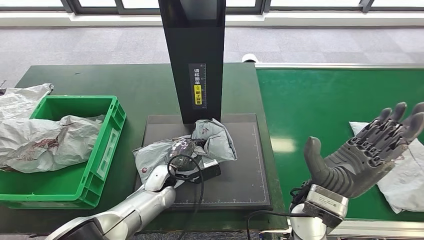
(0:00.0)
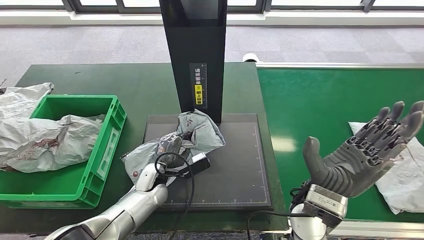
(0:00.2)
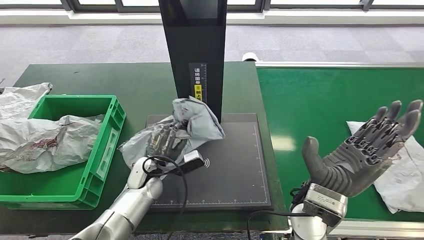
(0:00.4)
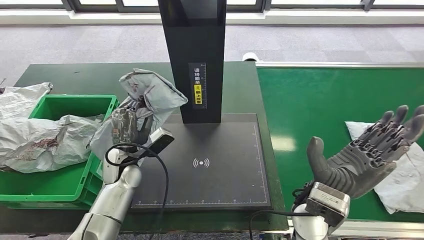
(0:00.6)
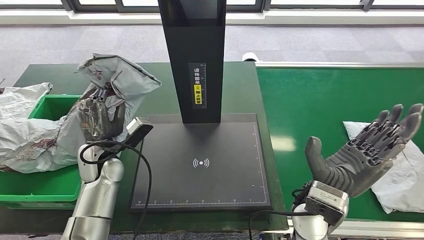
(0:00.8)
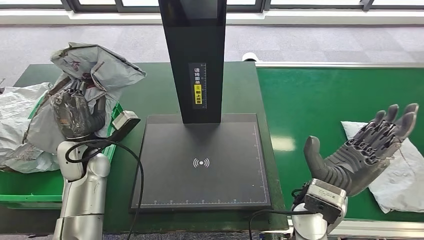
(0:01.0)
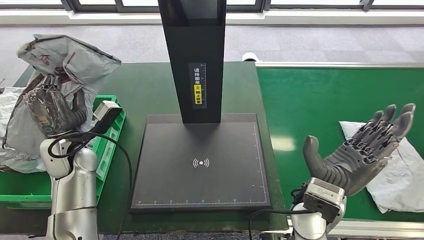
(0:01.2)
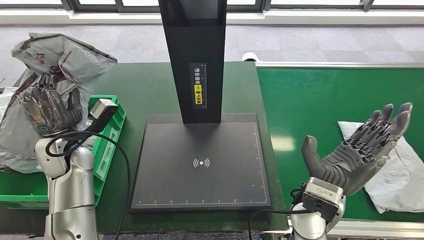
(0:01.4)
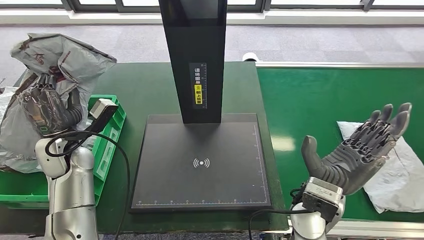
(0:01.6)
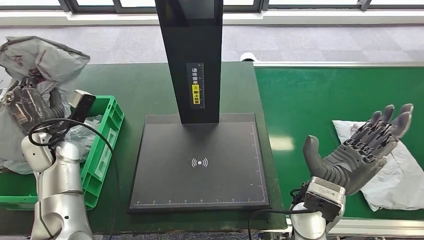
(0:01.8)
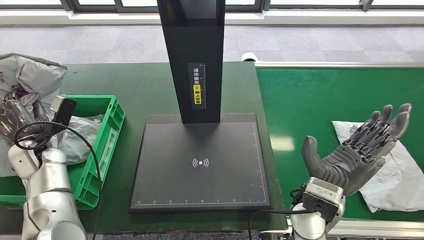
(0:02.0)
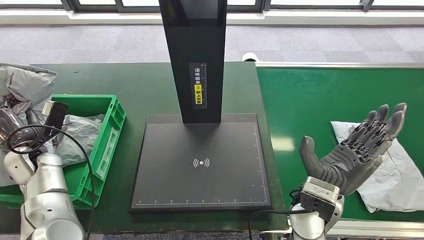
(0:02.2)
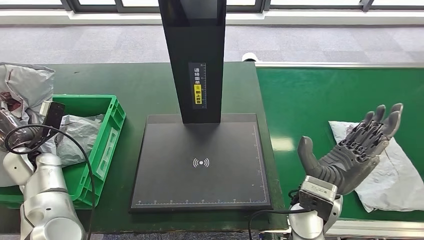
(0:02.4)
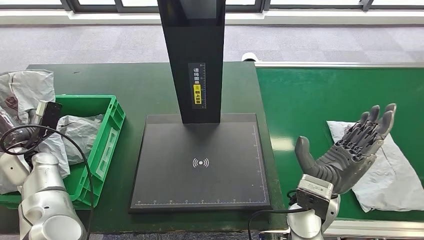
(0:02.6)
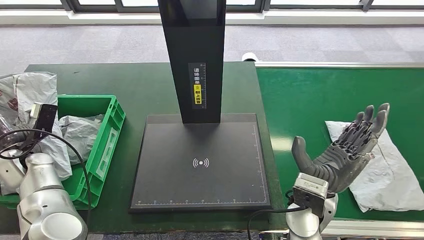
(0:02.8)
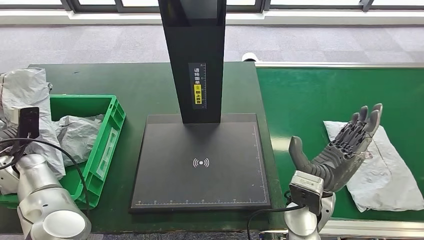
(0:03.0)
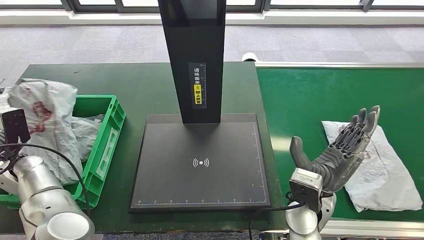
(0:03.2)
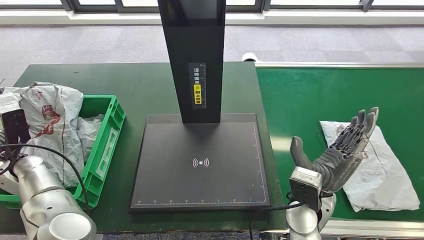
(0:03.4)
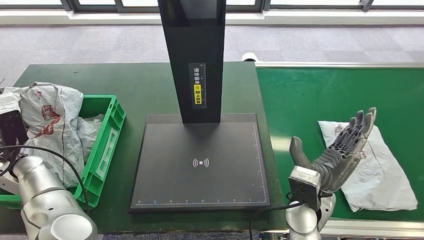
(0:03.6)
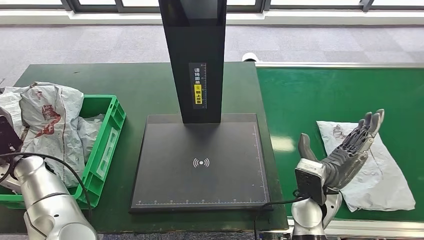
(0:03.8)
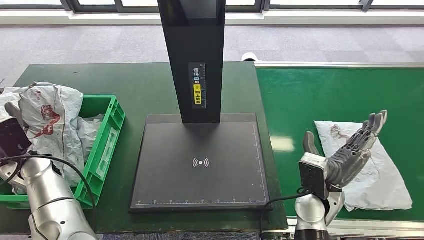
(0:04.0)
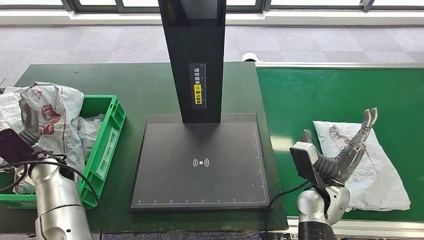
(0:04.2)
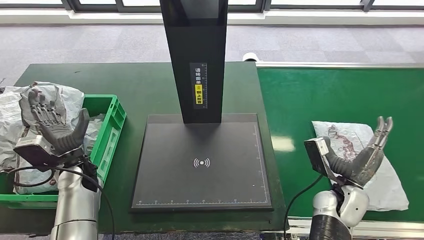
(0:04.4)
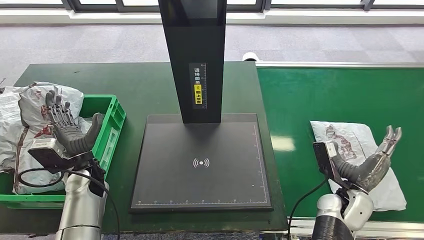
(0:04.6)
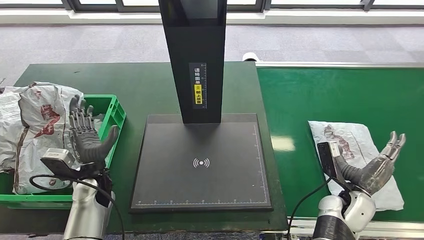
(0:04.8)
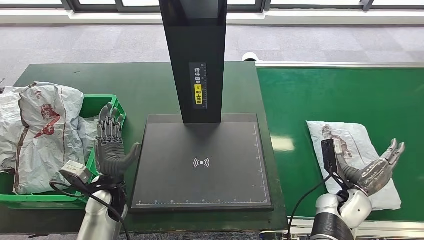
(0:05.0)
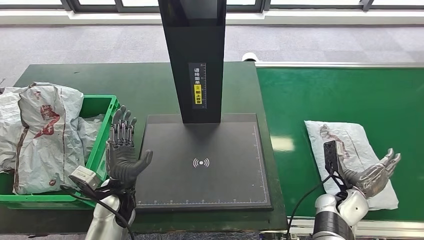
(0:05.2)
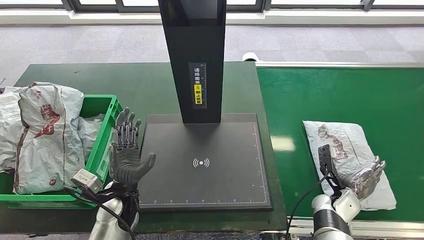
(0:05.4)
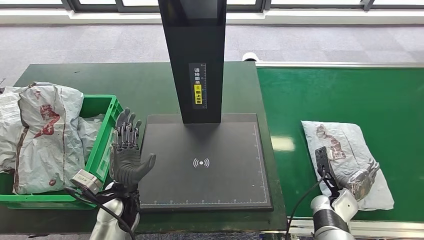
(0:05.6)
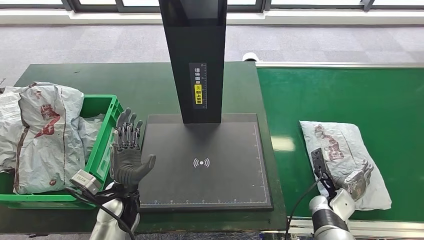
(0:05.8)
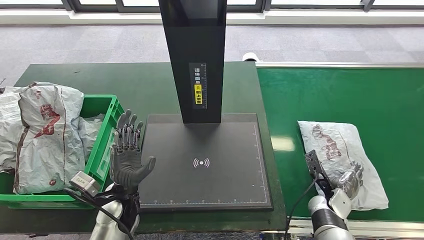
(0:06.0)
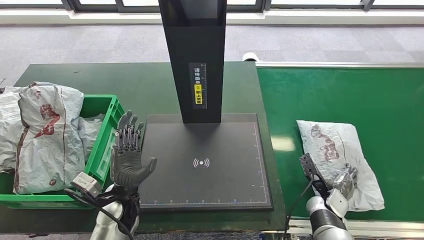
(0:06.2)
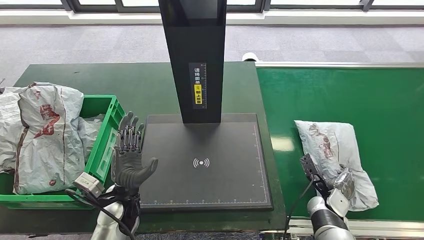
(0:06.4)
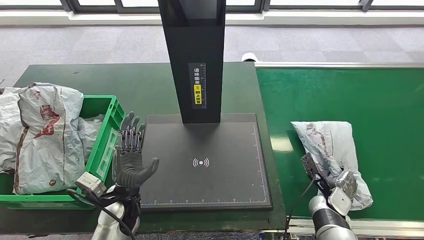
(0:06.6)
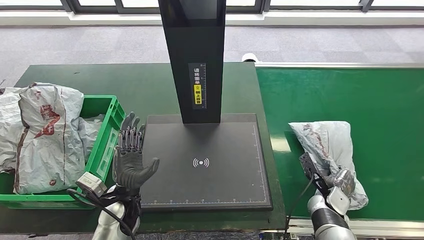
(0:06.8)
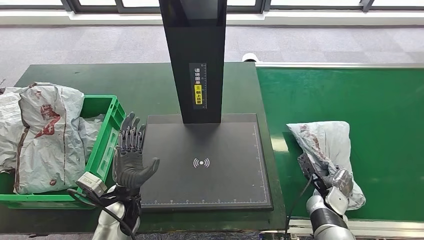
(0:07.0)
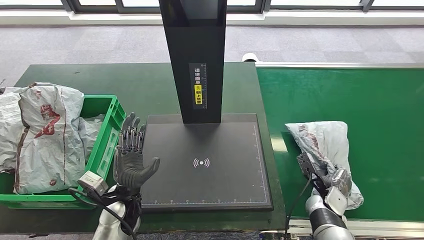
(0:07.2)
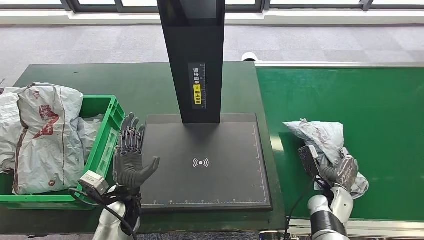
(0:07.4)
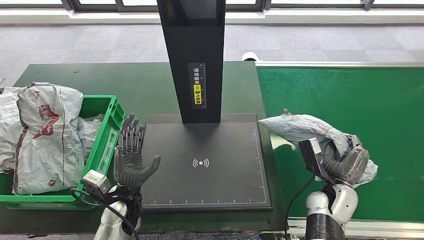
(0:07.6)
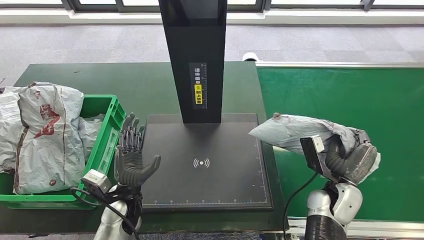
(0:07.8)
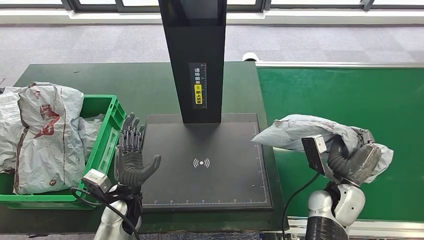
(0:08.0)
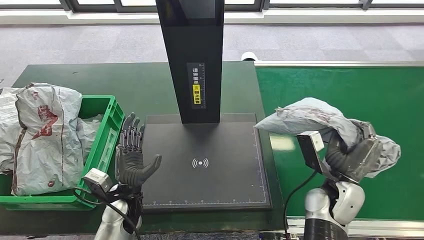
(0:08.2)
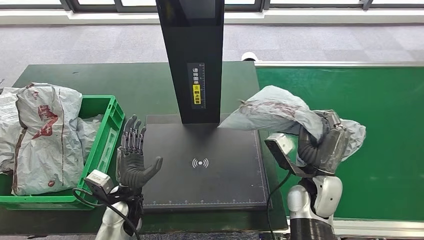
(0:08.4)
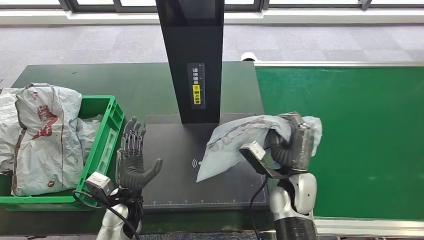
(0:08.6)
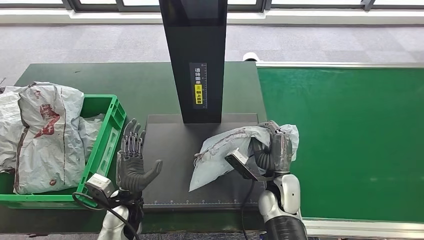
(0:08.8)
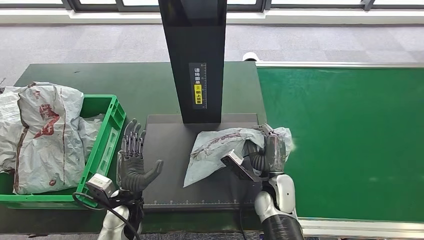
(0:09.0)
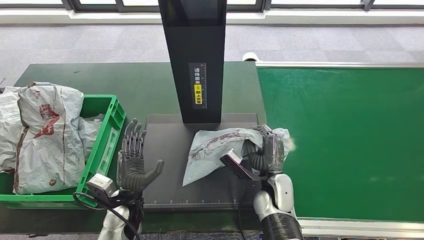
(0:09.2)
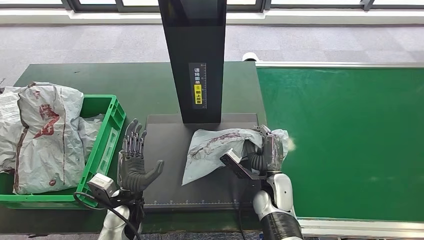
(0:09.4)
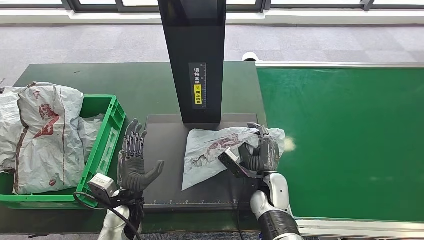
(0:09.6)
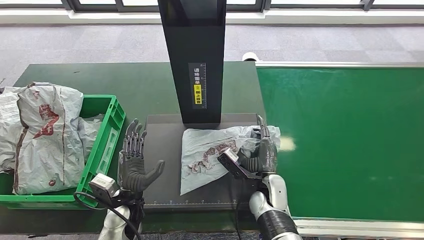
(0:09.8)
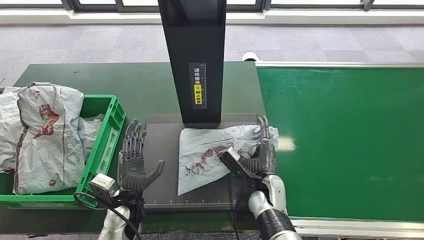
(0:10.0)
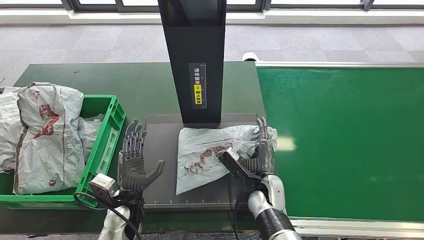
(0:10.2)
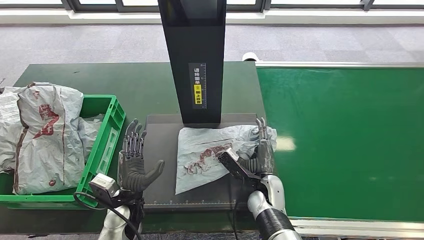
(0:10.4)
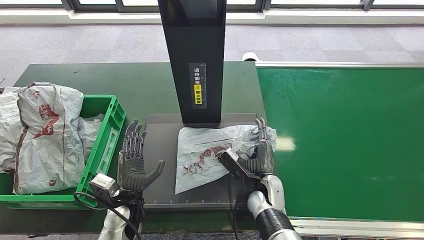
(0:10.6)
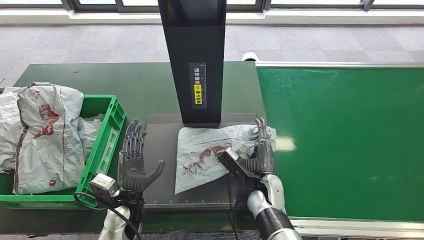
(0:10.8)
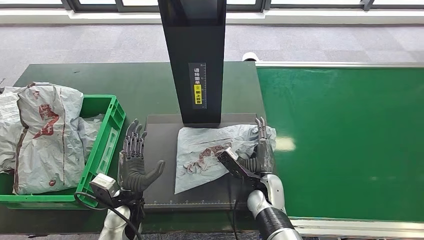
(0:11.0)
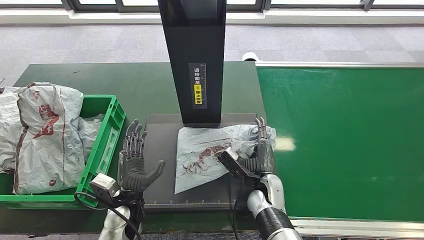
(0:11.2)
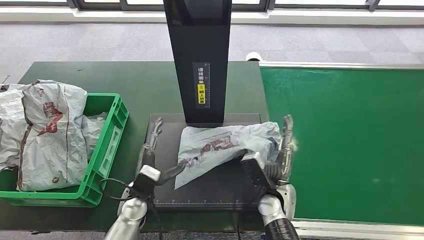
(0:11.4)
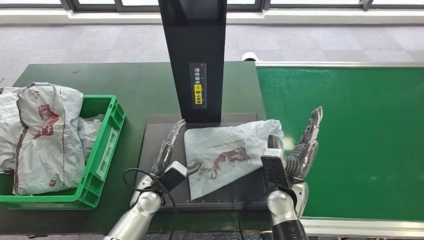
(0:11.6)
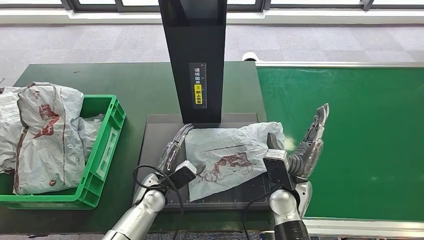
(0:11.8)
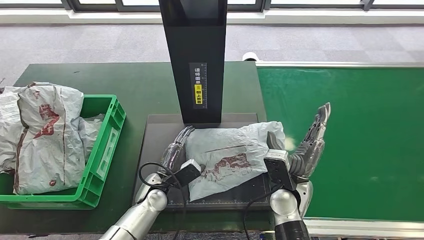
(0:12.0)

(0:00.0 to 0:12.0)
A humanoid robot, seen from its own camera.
Step, 0:01.0 - 0:03.6: Place the parcel into the delivery box.
Step, 0:07.2 - 0:08.2: Pick up the parcel from the conveyor belt.
Step, 0:08.6 - 0:11.2: Place the parcel onto the inbound machine.
0:04.4 - 0:06.0: The left hand shifts about 15 cm to the right and backward. Meanwhile the right hand goes approximately 10 cm downward.
0:06.0 - 0:07.6: The right hand goes some 5 cm upward.
0:07.6 - 0:09.0: The right hand goes approximately 15 cm to the left.
0:09.0 - 0:10.4: The hands stay close to where they were, moving slightly.
0:10.4 - 0:12.0: The right hand goes some 5 cm upward. Meanwhile the left hand shifts about 5 cm to the right.

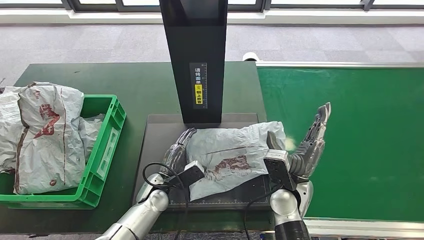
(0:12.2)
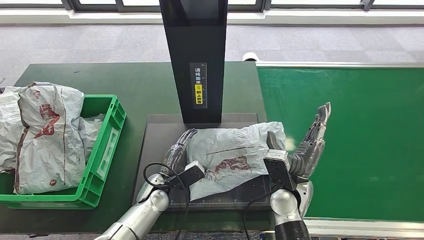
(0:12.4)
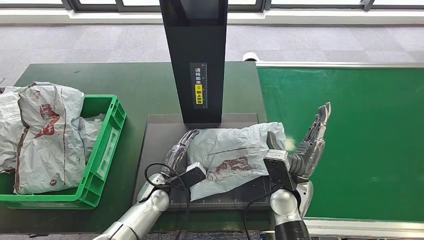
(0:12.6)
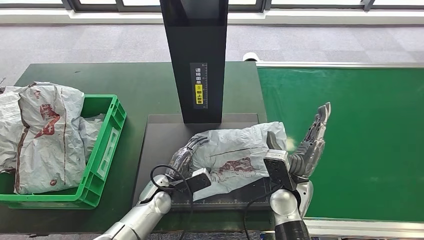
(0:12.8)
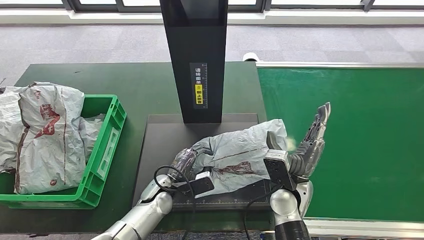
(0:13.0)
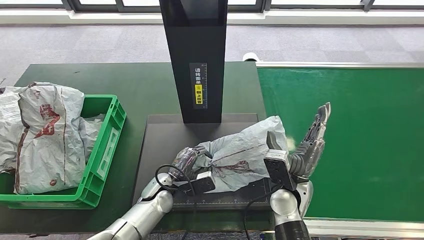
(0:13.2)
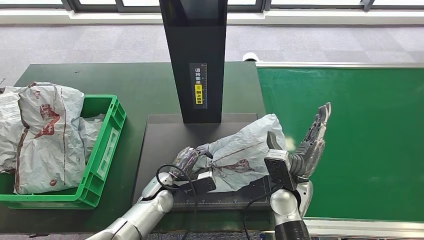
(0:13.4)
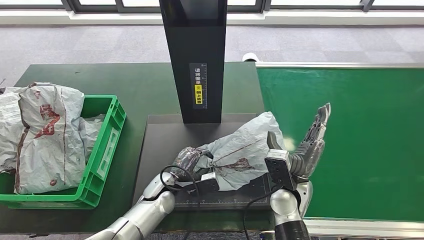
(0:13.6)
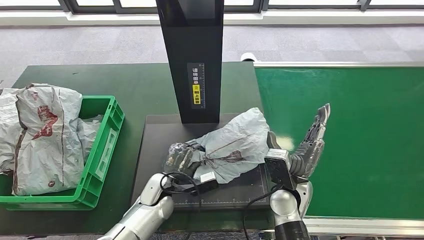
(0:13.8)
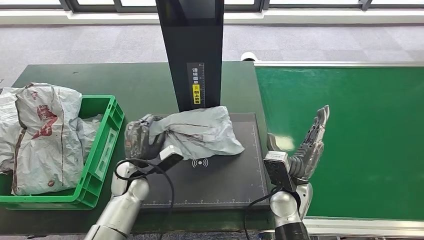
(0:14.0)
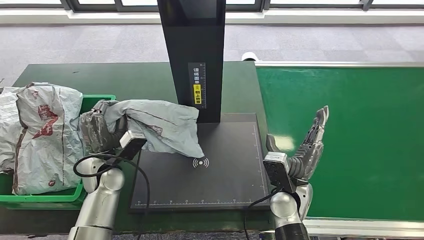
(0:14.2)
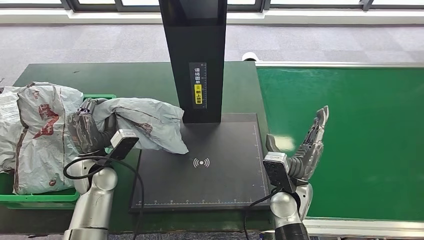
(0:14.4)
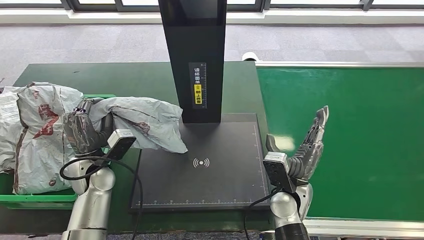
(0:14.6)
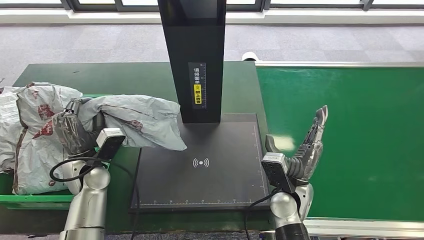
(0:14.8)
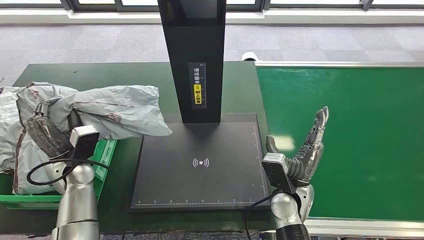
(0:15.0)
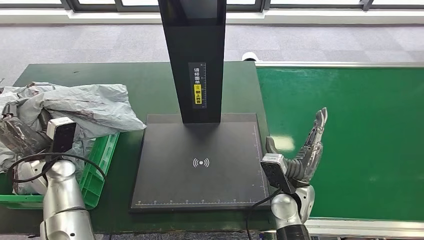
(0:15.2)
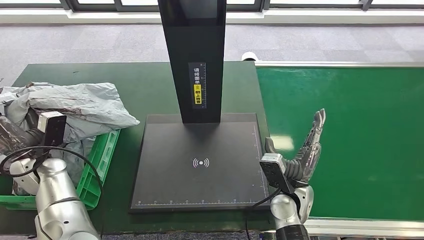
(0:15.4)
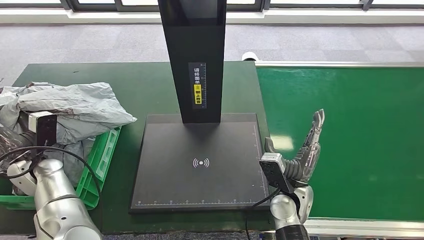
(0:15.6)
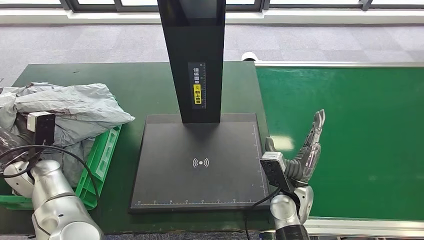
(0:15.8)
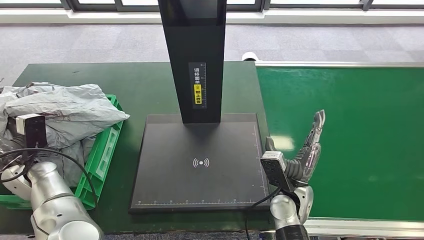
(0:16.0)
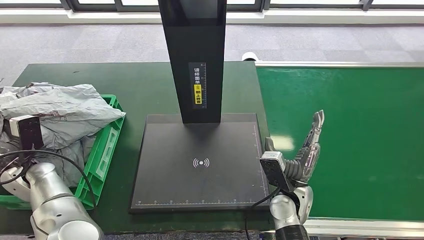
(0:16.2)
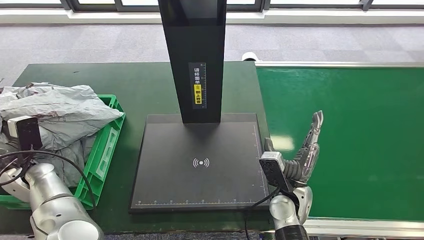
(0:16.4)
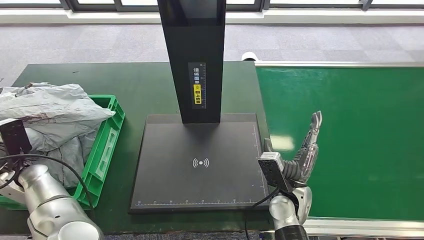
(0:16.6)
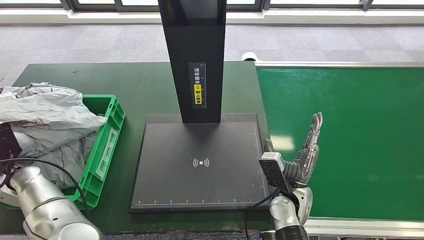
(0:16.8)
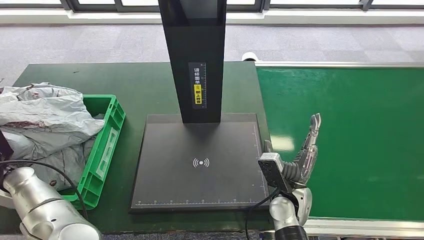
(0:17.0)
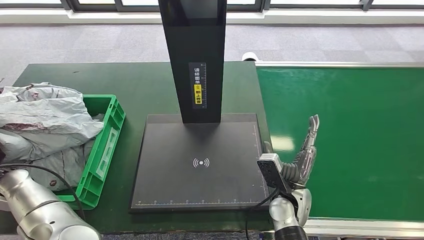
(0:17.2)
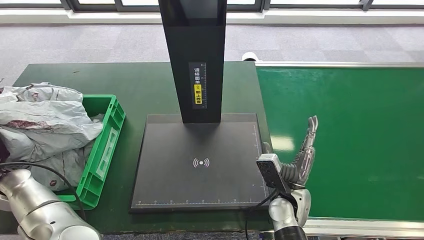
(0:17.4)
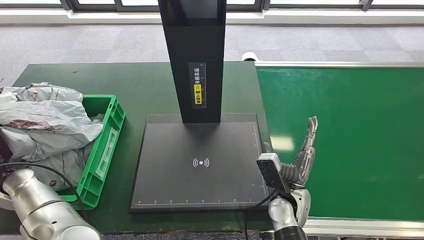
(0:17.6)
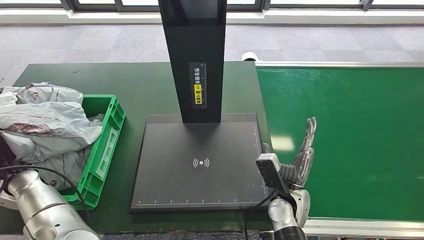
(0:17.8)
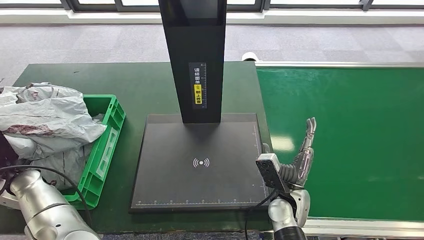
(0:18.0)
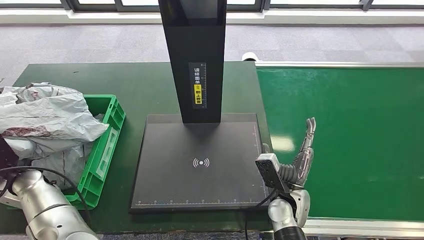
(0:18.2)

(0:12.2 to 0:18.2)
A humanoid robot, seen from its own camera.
Step, 0:12.2 - 0:15.0: Pick up the parcel from the inbound machine.
Step, 0:15.2 - 0:18.2: Place the parcel into the delivery box.
0:15.2 - 0:16.6: The left hand travels to the left by approximately 5 cm.
0:16.6 - 0:18.2: The hands stay close to where they were, moving slightly.
